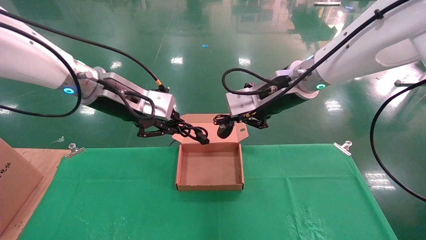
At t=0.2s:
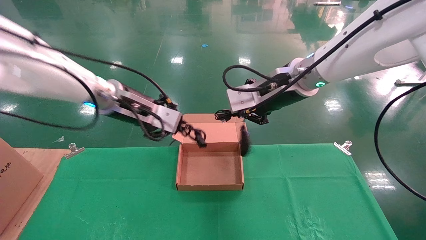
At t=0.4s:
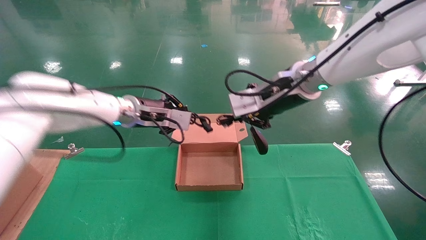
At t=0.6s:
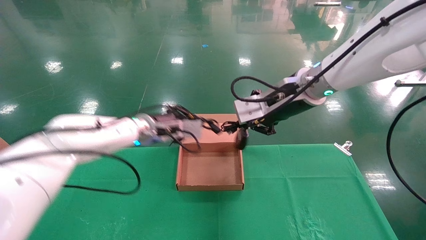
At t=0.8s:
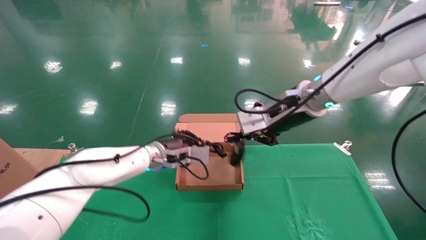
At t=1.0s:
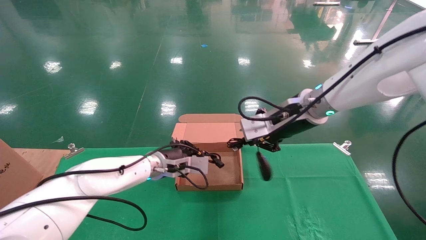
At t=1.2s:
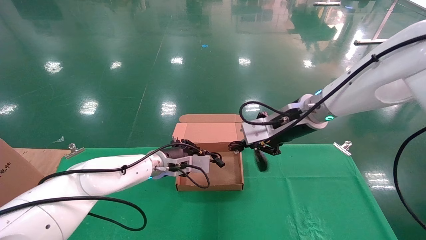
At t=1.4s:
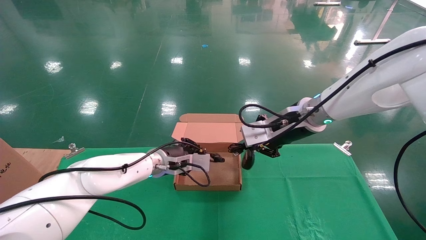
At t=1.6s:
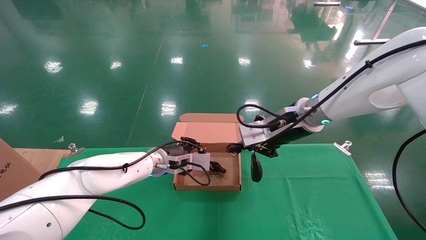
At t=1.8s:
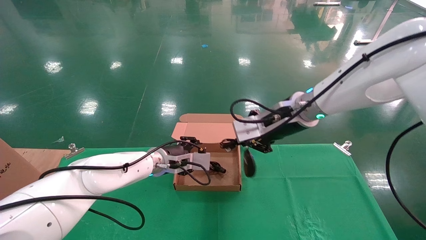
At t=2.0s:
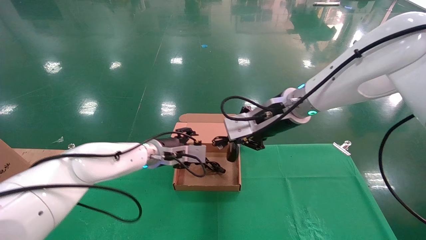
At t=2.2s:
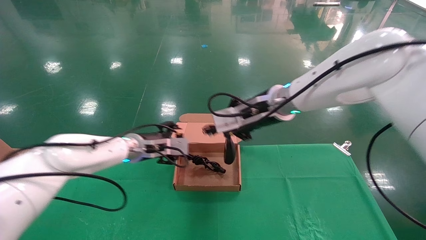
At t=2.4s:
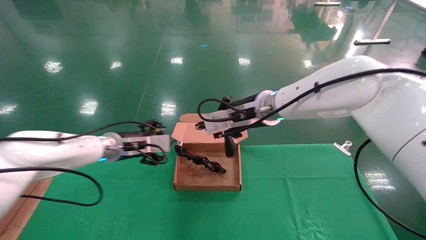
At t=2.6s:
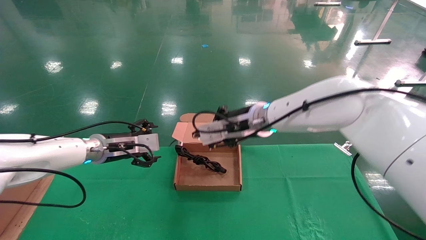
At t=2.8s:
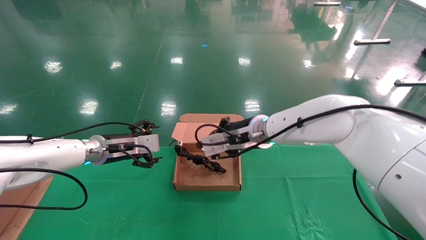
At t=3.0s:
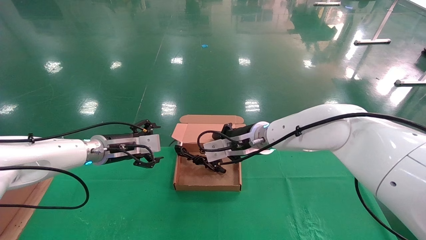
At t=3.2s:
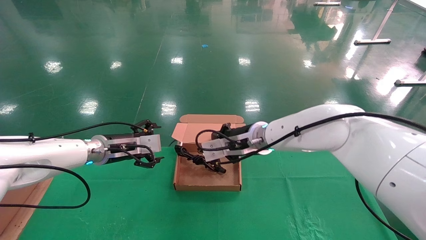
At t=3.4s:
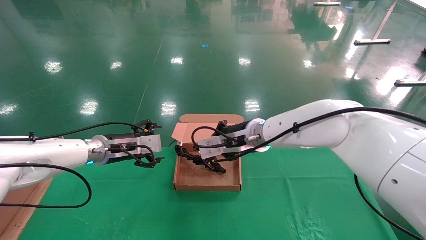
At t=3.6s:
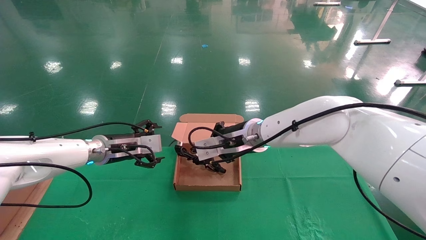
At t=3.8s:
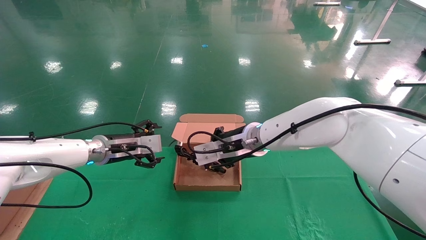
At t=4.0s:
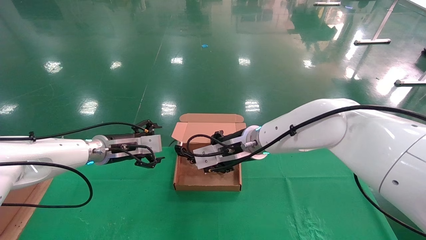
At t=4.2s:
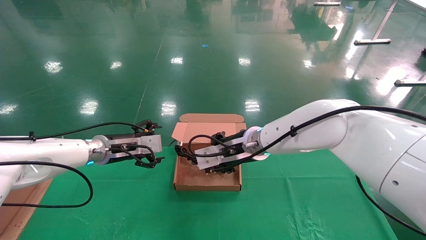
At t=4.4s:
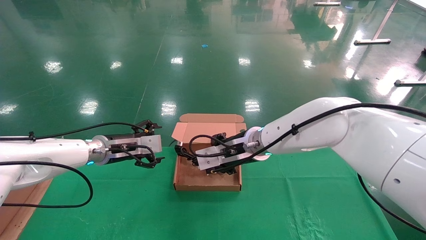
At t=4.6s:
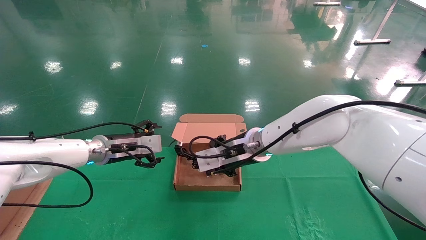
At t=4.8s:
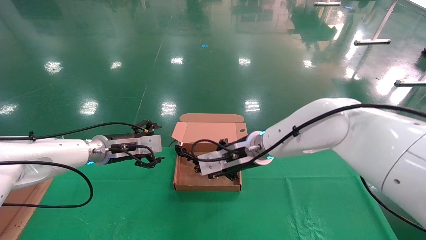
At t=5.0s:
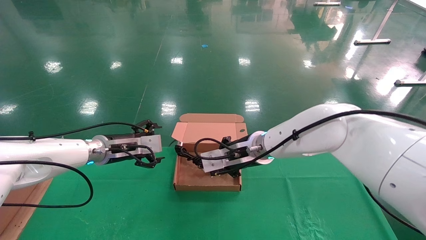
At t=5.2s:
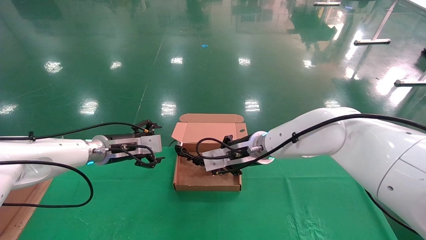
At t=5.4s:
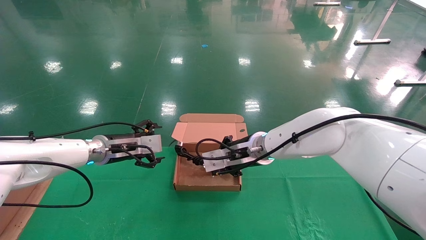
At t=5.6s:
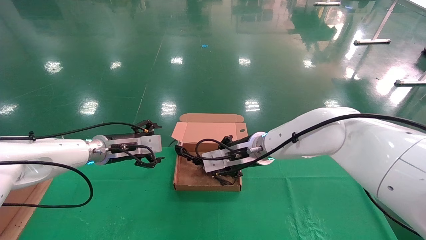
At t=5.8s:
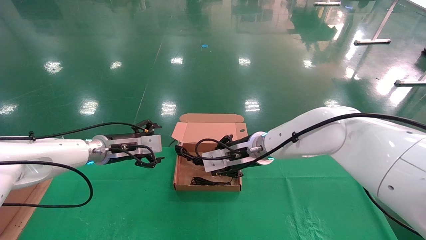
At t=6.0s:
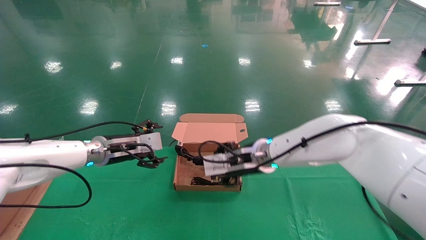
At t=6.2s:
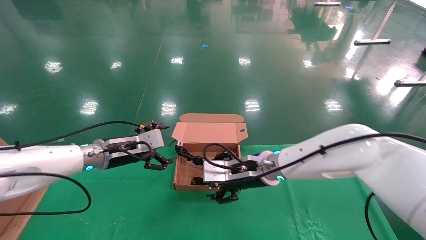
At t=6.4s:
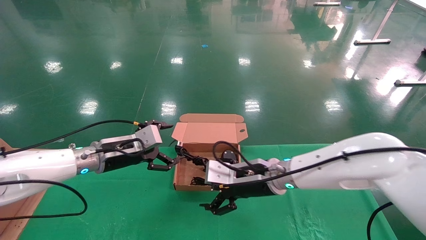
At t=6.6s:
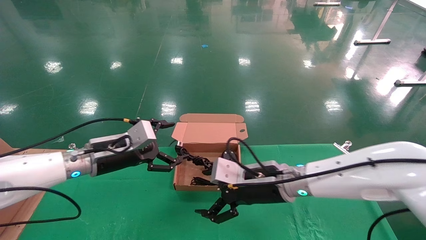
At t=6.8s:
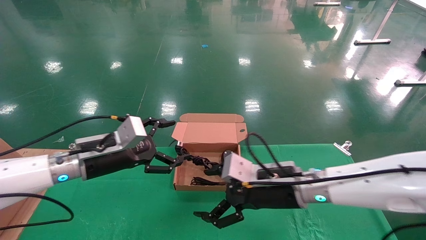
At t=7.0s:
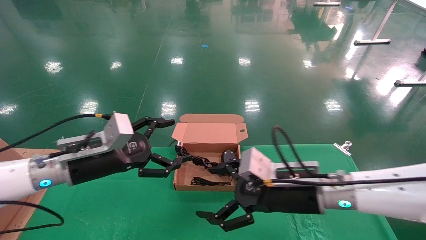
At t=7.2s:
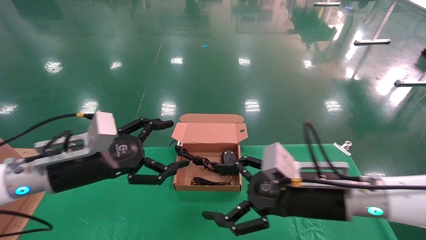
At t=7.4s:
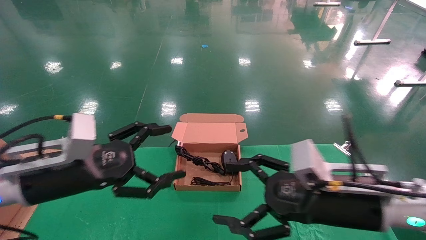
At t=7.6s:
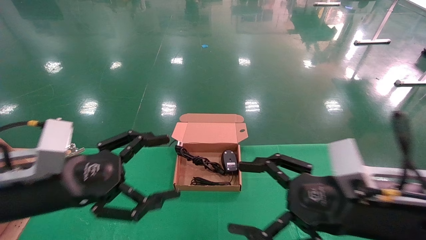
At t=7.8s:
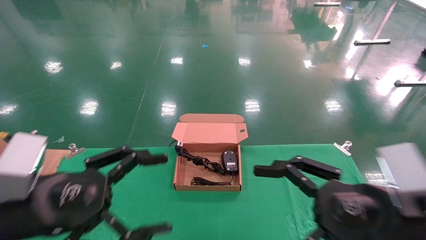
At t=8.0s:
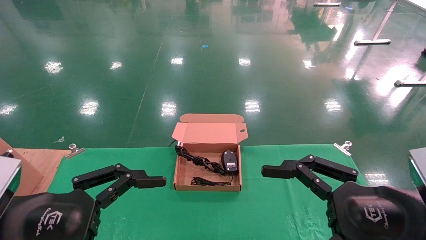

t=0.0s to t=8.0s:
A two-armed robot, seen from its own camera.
Step, t=0.0s to t=4.2s: Place the mouse and power cord into the box.
t=0.0s to t=1.6s: The right gripper travels downward by some 5 cm. Meanwhile the left gripper goes approximately 20 cm downward and forward.
t=1.6s to t=3.2s: The left gripper travels to the left by approximately 15 cm, and opens. Meanwhile the right gripper moves to the left and downward, roughly 10 cm.
t=3.2s to t=4.8s: There are only small adjustments of the grippers.
t=4.8s to t=6.4s: The right gripper moves approximately 5 cm, and opens its fingers.
t=6.4s to t=8.0s: The right gripper shifts roughly 25 cm backward and to the right. Meanwhile the left gripper is displaced backward by roughly 25 cm.

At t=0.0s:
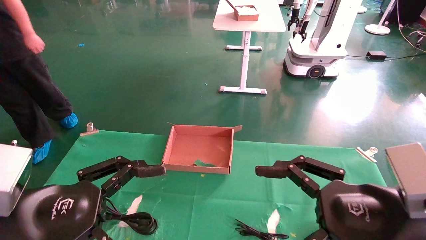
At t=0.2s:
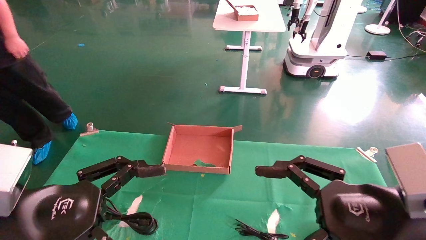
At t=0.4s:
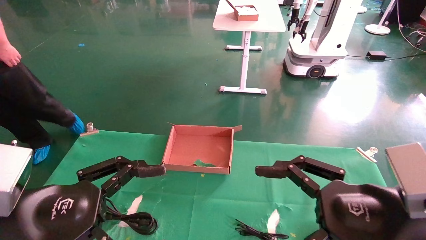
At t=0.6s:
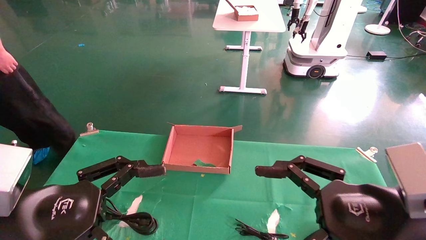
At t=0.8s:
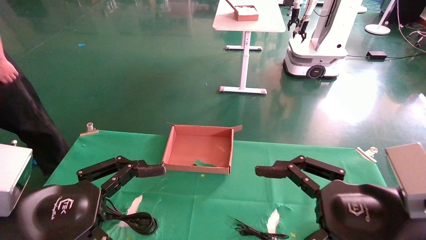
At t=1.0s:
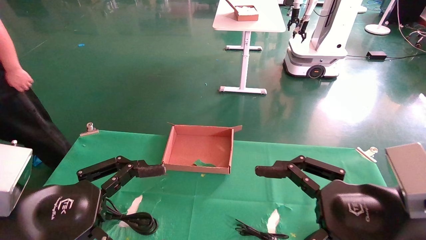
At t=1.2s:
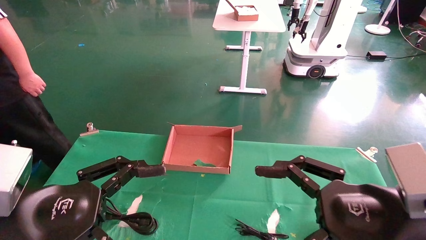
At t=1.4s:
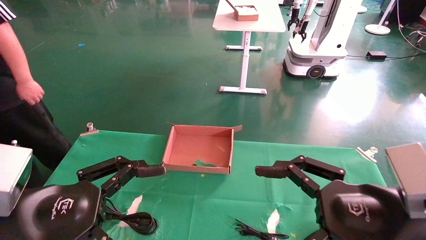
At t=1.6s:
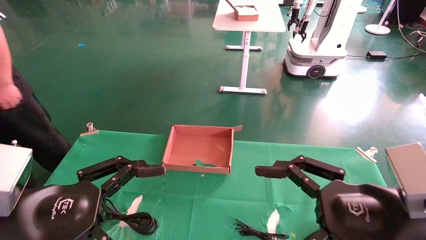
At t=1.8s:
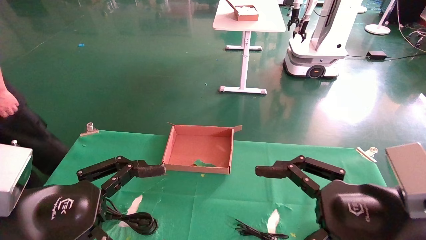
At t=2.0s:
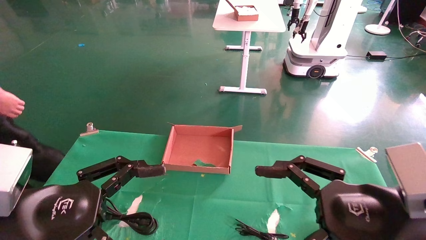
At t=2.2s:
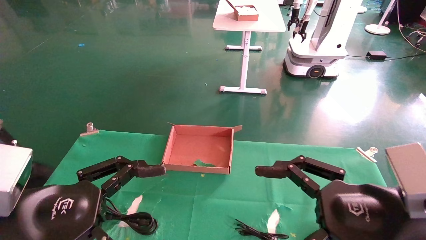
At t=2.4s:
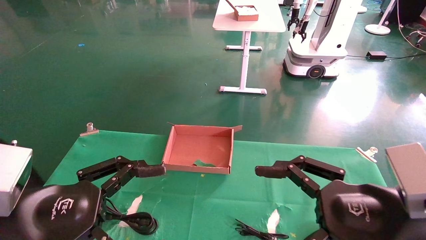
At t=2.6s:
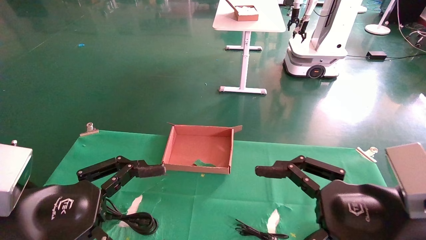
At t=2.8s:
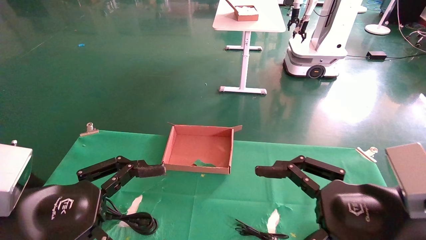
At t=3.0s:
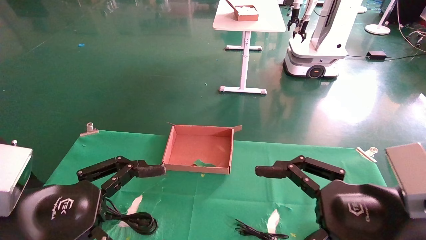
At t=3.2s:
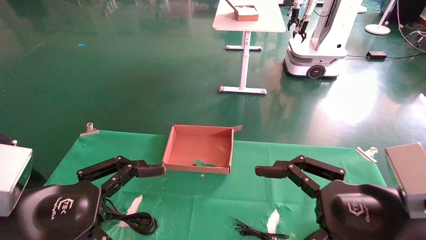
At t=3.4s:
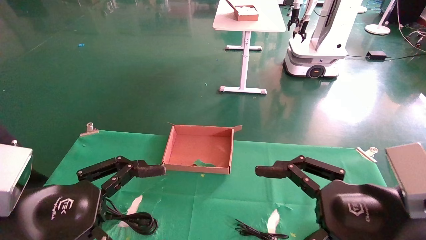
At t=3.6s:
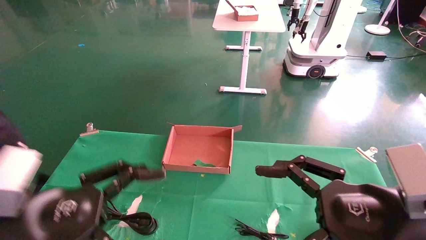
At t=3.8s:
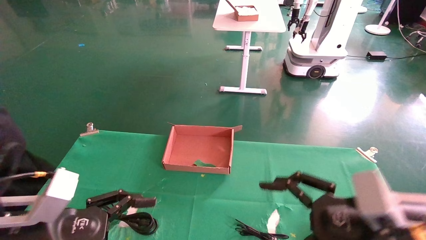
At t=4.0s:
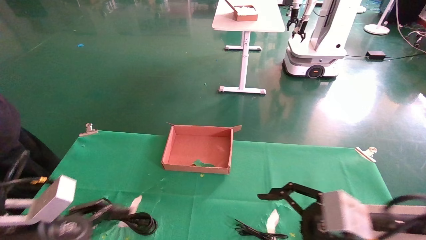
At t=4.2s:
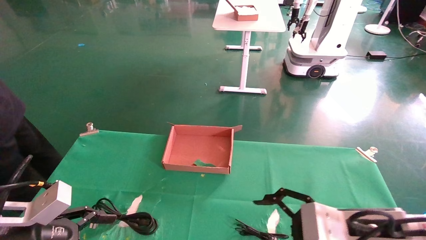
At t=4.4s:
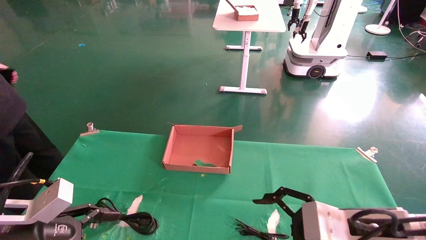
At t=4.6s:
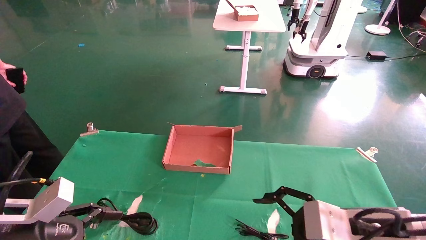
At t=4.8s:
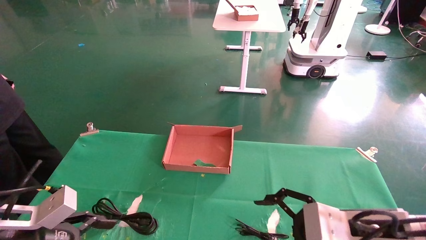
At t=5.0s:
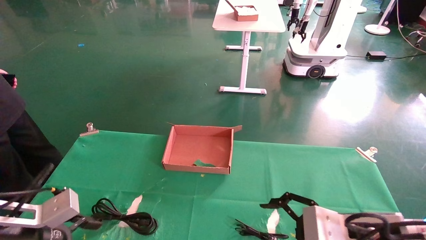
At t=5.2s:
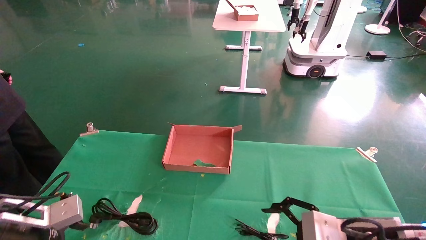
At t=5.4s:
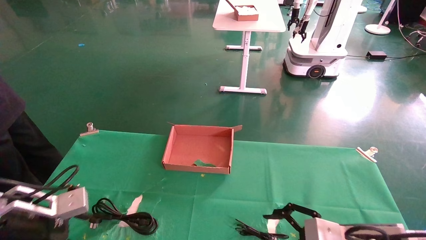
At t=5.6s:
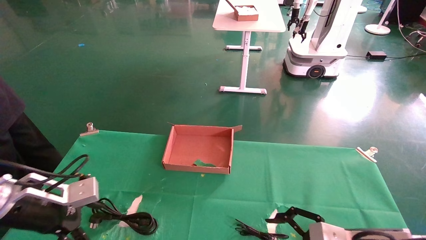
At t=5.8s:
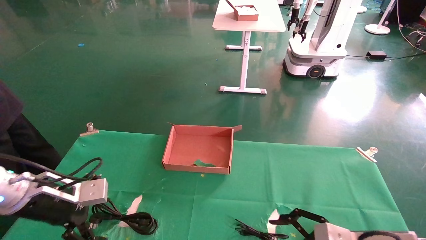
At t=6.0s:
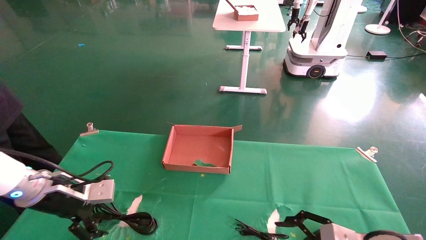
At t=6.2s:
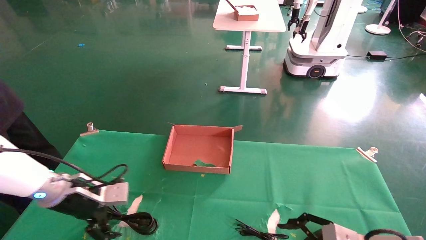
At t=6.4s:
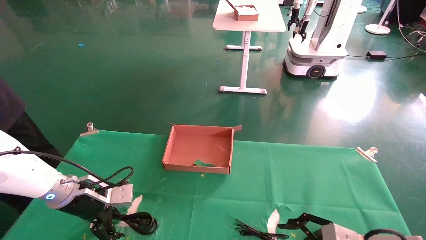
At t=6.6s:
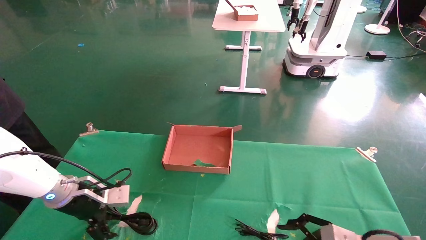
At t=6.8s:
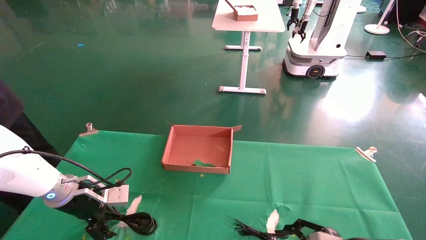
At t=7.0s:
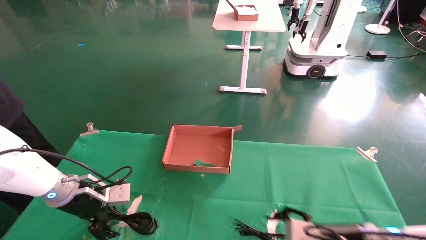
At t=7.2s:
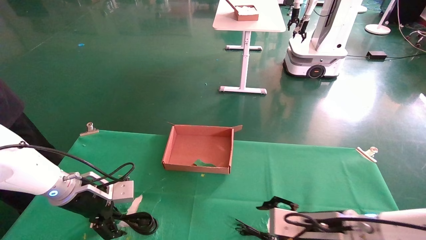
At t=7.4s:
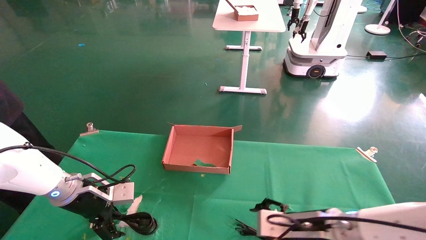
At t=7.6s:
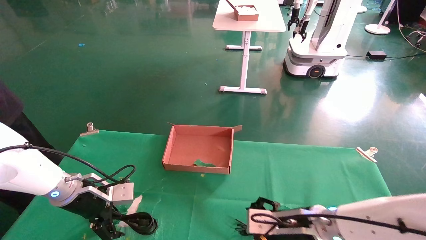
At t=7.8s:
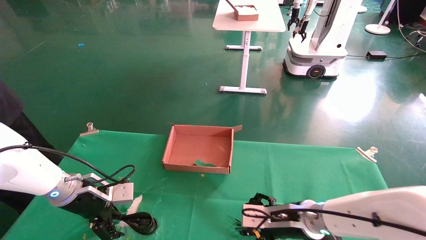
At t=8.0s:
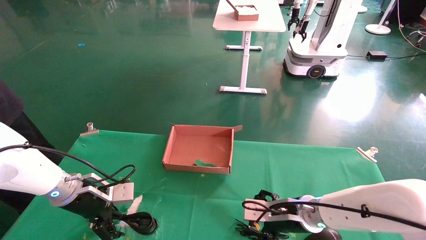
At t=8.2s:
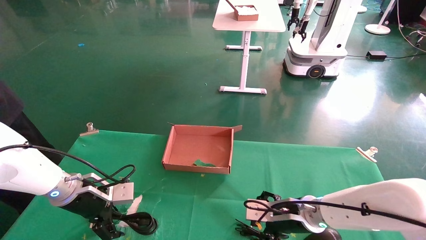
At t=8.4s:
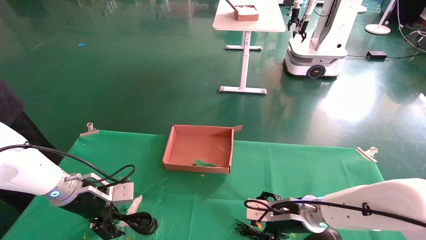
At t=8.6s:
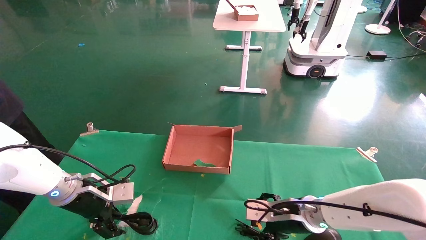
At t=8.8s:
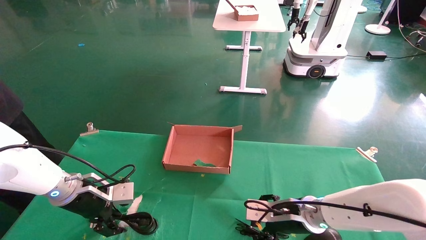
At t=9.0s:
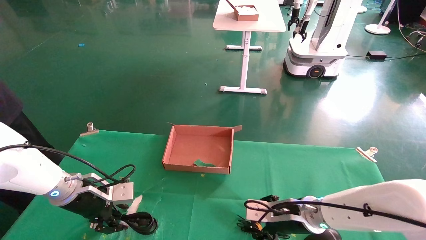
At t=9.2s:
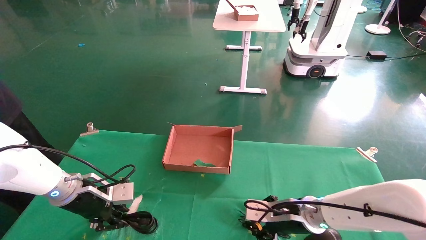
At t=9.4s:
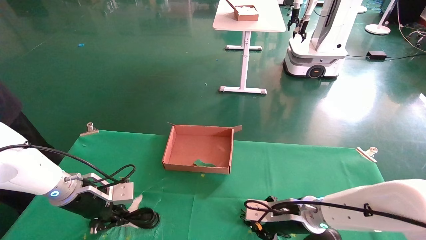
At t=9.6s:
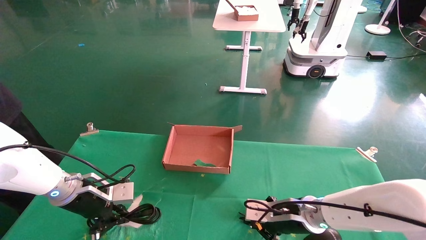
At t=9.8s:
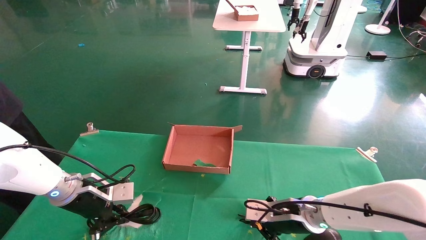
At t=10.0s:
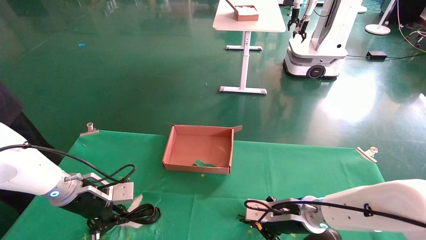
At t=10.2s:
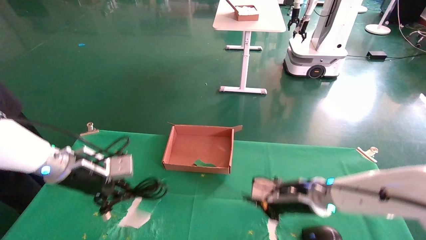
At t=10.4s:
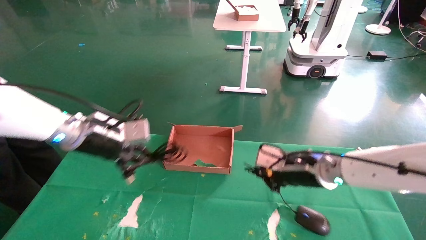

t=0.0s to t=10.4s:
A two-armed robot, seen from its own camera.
t=0.0s to t=3.0s: Neither gripper changes place.
t=3.0s to t=4.4s: The right gripper moves downward and forward, approximately 10 cm. The left gripper is displaced to the left and downward by approximately 10 cm.
t=4.4s to t=6.0s: The left gripper travels forward by roughly 15 cm. The right gripper ends up about 5 cm from where it was.
t=6.0s to t=7.4s: The right gripper shifts about 10 cm forward and to the left. Meanwhile the left gripper moves about 5 cm.
t=7.4s to t=9.0s: The right gripper goes some 5 cm forward, and closes up. The left gripper closes its fingers.
t=9.0s to t=10.4s: The right gripper is displaced upward by roughly 10 cm, and closes, while the left gripper is displaced upward and to the right by roughly 15 cm, and closes.
